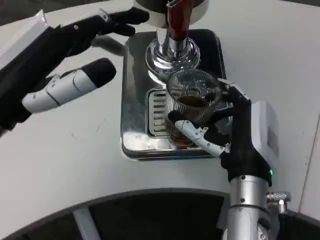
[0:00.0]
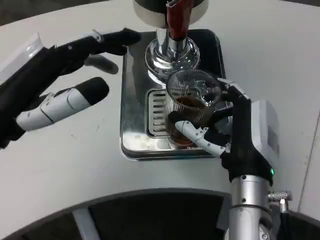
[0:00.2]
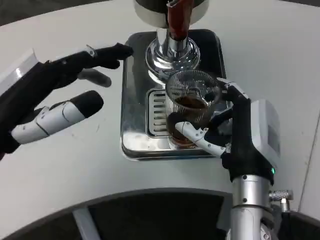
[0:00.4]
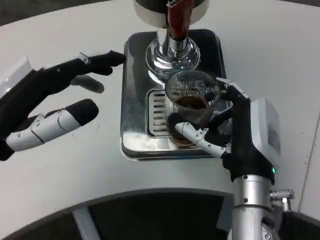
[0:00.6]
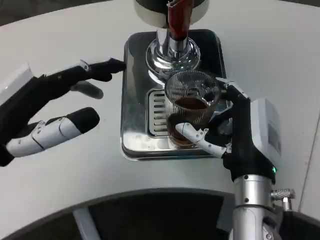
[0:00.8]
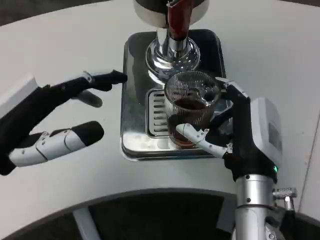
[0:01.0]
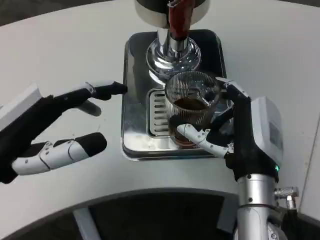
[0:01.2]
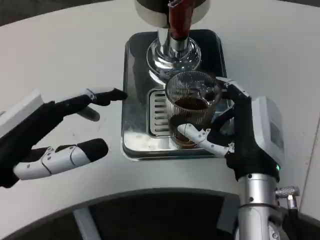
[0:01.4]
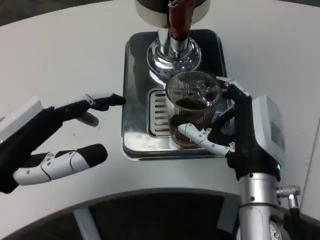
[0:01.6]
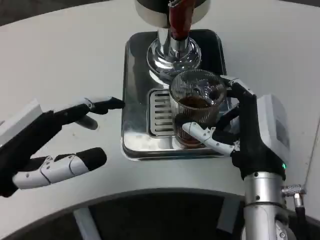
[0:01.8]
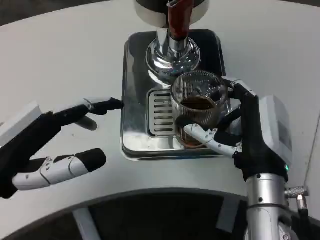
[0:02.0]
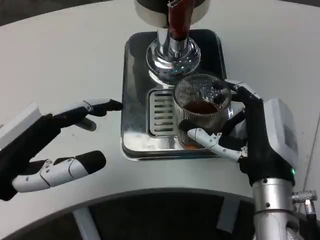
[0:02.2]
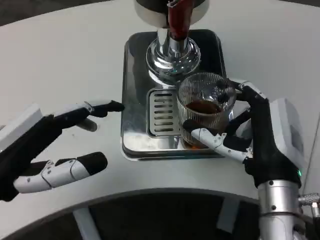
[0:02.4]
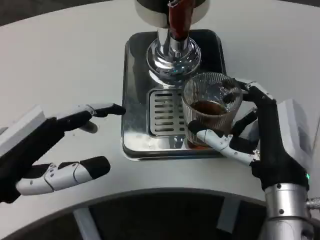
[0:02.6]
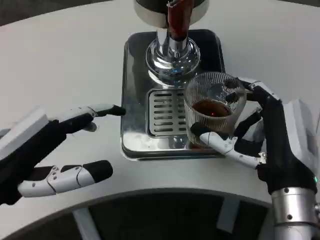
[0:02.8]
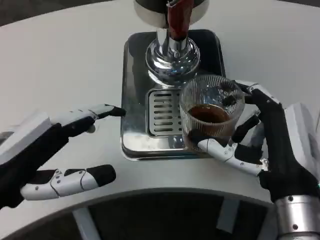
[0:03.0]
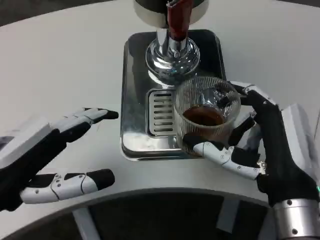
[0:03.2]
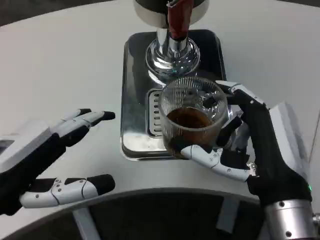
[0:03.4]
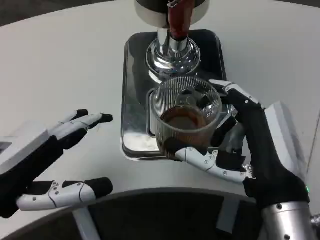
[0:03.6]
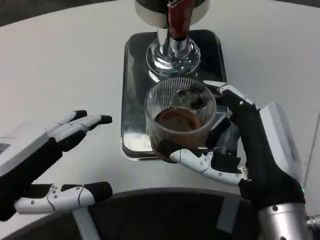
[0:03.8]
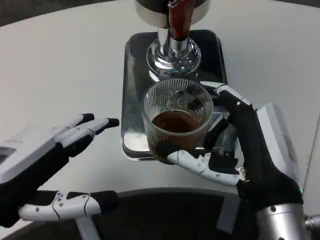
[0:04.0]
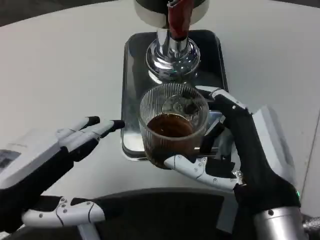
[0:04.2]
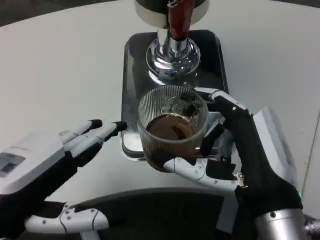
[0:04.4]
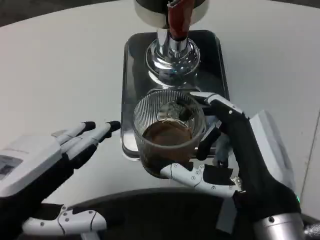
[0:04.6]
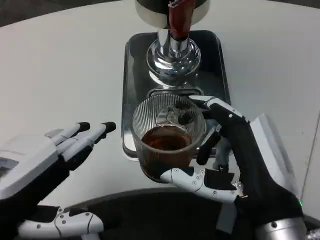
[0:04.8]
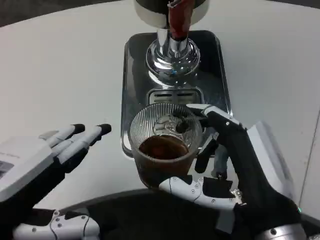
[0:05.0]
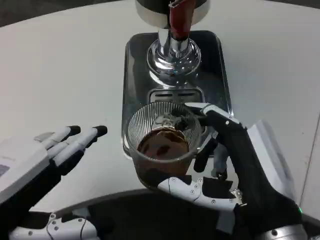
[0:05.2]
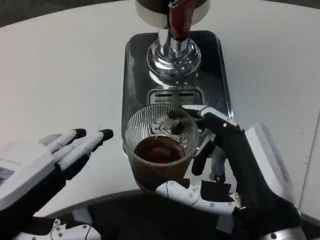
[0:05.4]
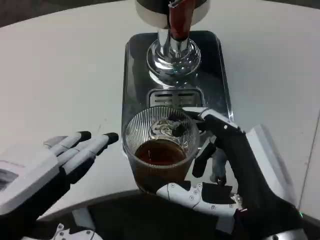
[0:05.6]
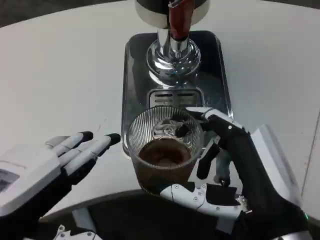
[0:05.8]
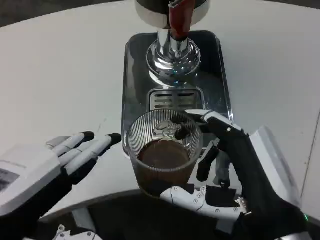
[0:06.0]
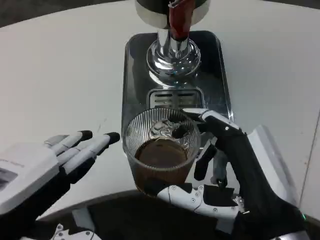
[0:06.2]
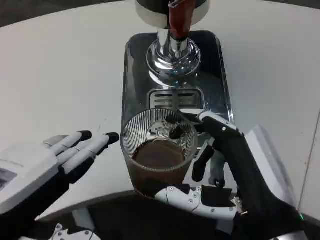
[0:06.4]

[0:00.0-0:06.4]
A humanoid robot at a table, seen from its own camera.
Task of the whole recording: Grasp the cup under the faucet to collect the drink, then remove the cup.
0:00.0 to 0:01.6: The left hand shifts about 5 cm downward.
0:01.6 to 0:03.2: The right hand heads backward, covering approximately 5 cm.

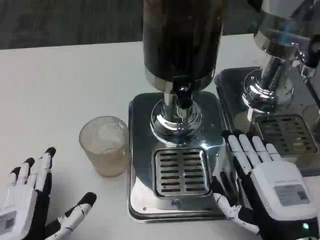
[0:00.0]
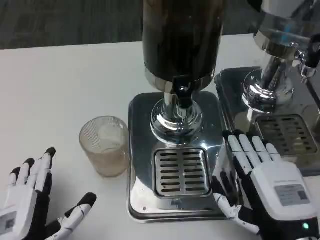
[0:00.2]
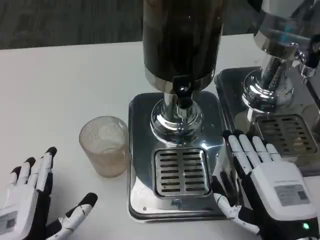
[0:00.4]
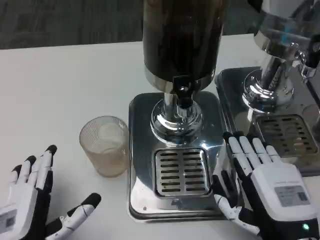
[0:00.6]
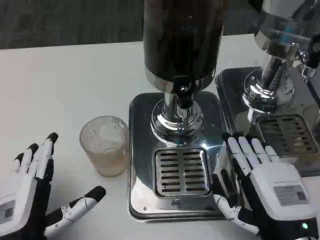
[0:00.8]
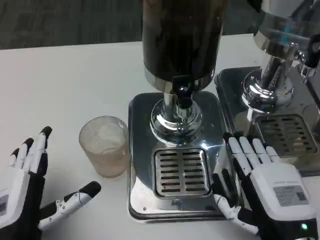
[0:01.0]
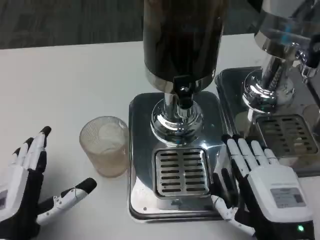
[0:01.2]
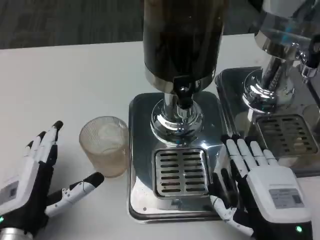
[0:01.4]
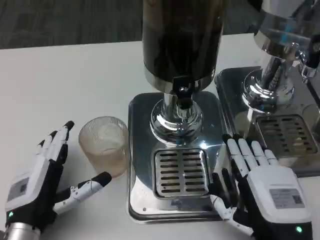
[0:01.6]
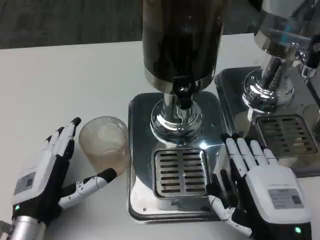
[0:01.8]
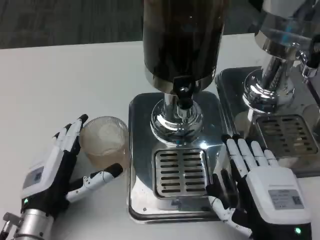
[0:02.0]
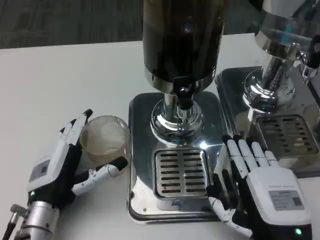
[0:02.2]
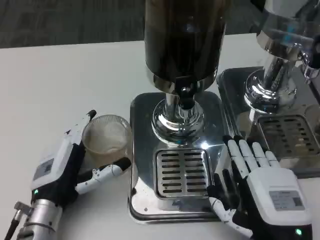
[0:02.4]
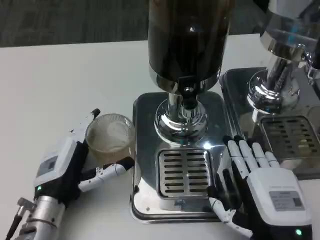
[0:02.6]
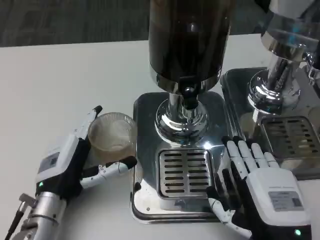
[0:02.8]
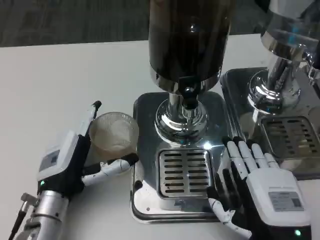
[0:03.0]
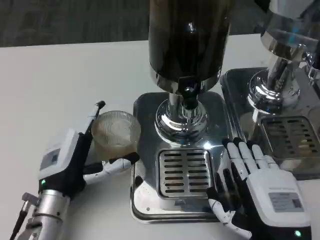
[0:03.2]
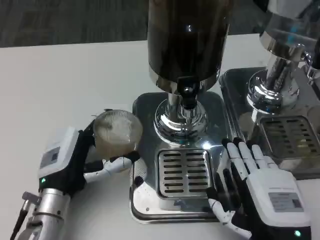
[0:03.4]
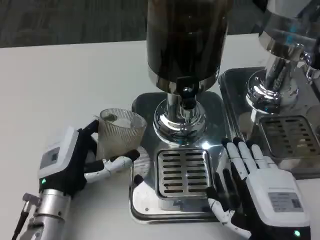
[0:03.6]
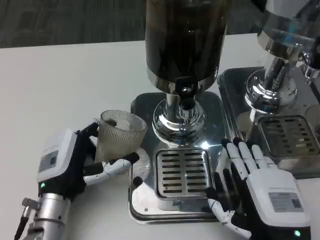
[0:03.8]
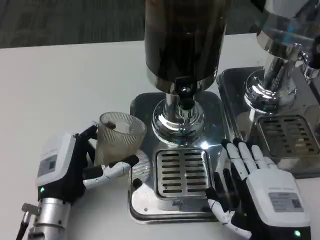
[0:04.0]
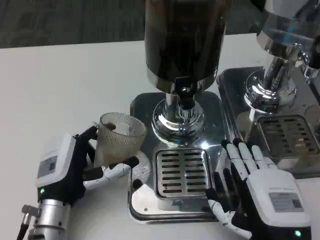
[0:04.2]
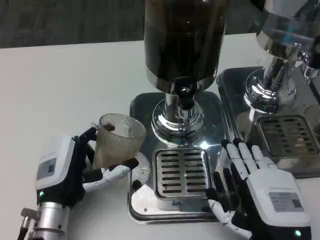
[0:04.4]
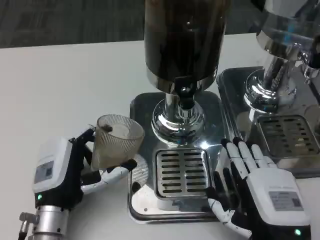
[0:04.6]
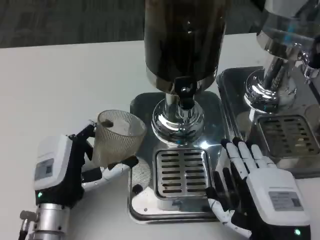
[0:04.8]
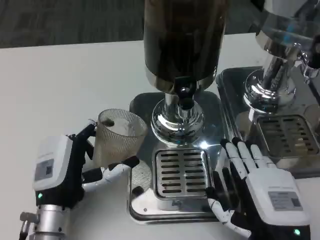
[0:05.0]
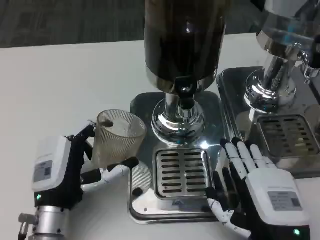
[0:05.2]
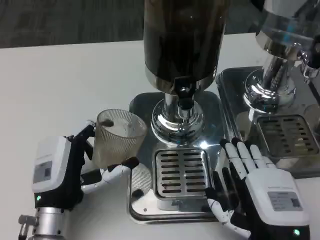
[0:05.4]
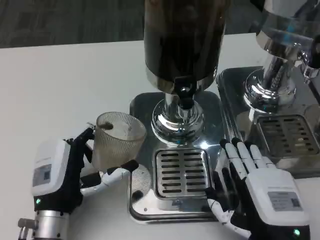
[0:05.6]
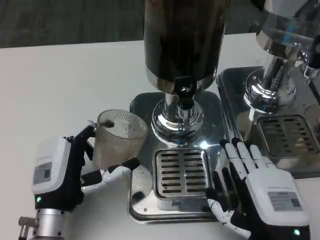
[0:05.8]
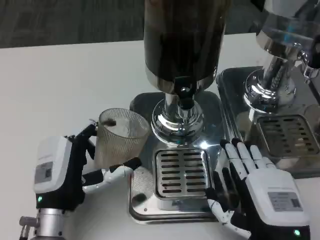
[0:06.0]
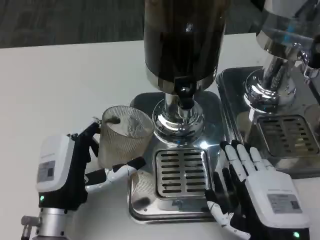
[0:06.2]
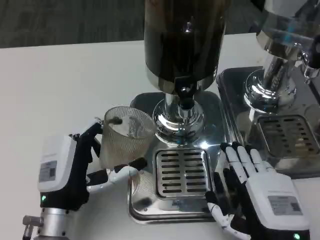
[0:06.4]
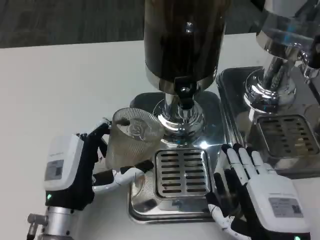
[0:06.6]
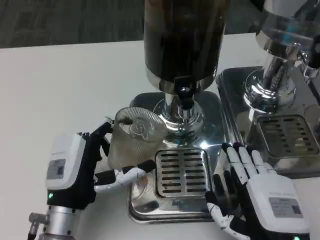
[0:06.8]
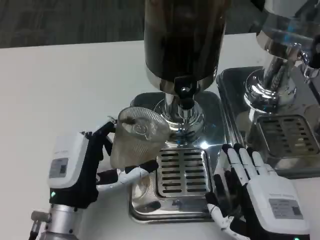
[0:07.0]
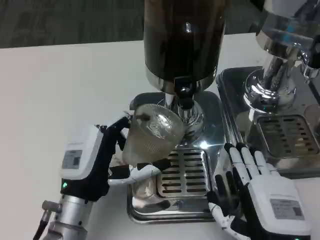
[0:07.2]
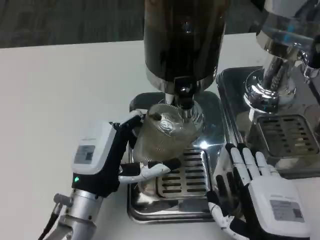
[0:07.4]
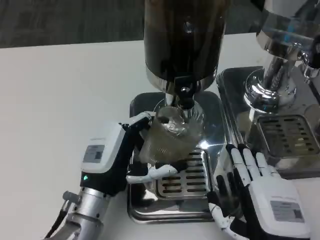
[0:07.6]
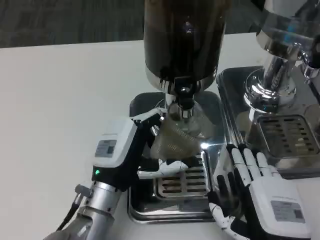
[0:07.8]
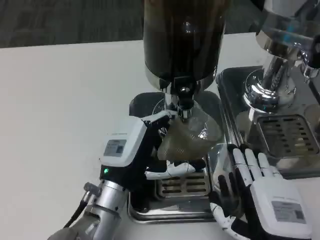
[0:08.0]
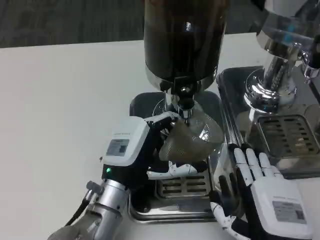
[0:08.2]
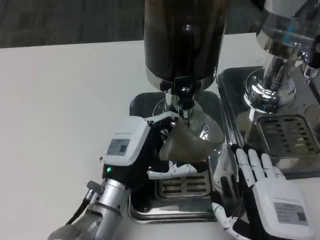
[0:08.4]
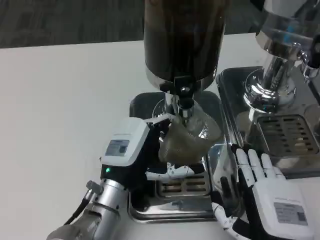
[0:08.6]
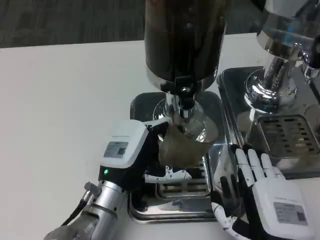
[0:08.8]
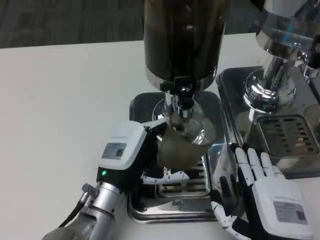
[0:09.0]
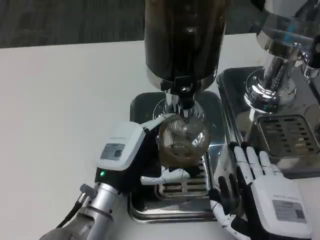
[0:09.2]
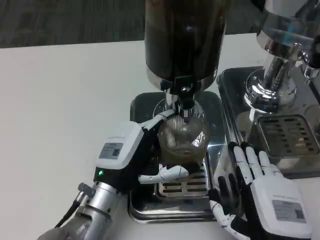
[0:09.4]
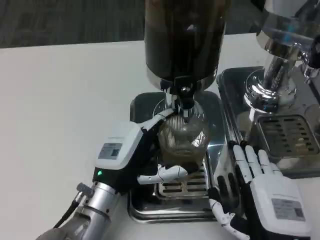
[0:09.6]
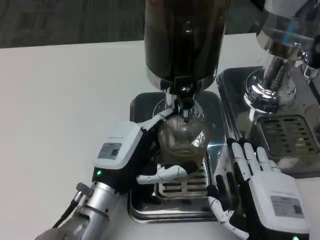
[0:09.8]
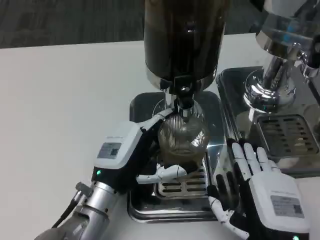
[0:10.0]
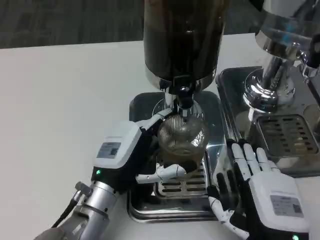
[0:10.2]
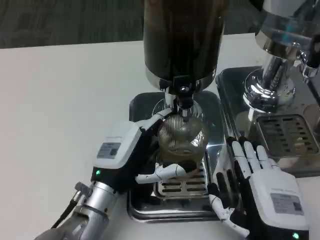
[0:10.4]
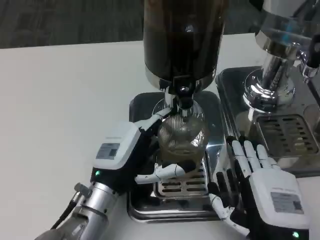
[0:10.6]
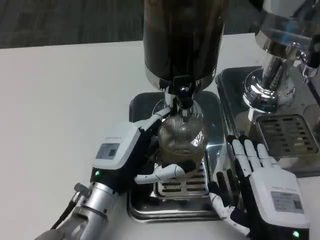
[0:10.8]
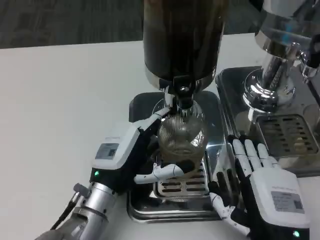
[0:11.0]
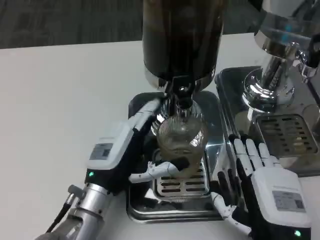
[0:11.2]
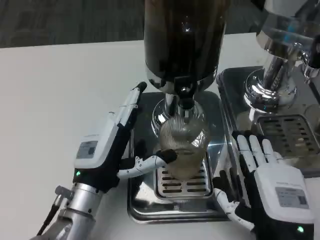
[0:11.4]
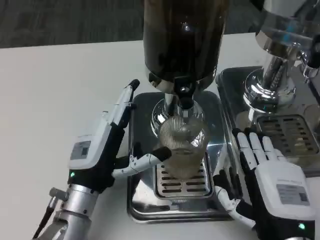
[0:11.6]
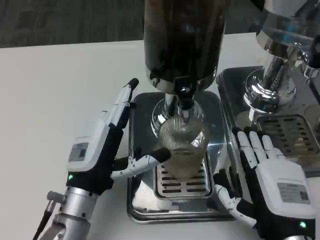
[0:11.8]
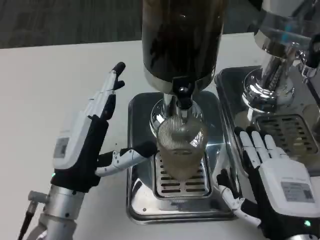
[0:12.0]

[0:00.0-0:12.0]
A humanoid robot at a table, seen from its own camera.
Task of the whole recording: Grasp the cup under the faucet to collect the drink, then remove the cup.
0:00.0 to 0:01.6: The left hand goes approximately 5 cm forward.
0:01.6 to 0:03.0: The left hand travels forward by about 5 cm.
0:04.4 to 0:06.0: There are only small adjustments of the hands.
0:06.0 to 0:07.6: The left hand changes place by some 5 cm.
0:07.6 to 0:09.0: The hands stay close to where they were, moving slightly.
0:09.0 to 0:10.4: Neither hand changes place.
0:10.4 to 0:12.0: The left hand shifts by approximately 5 cm.

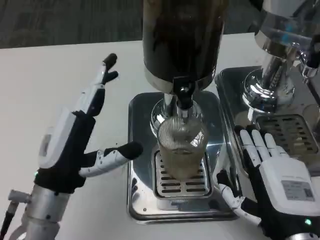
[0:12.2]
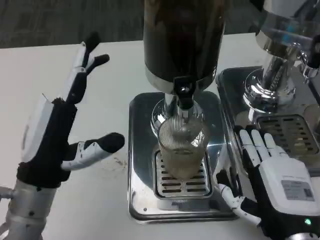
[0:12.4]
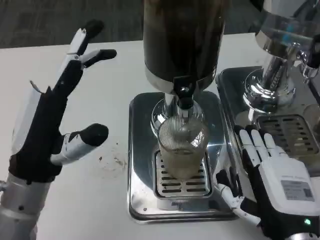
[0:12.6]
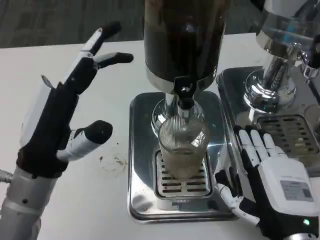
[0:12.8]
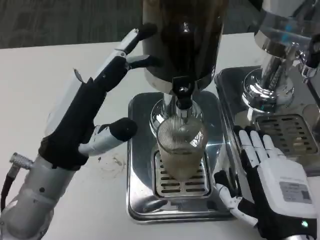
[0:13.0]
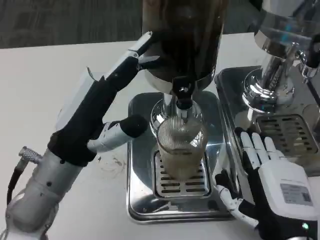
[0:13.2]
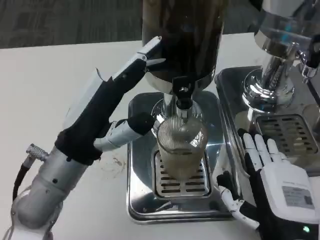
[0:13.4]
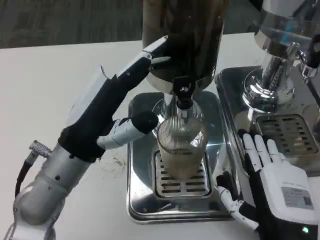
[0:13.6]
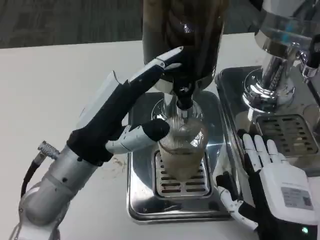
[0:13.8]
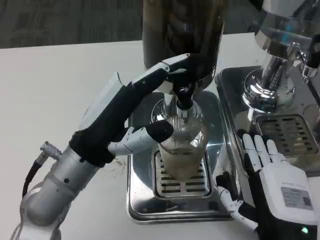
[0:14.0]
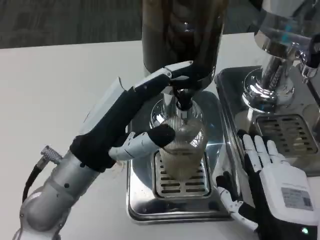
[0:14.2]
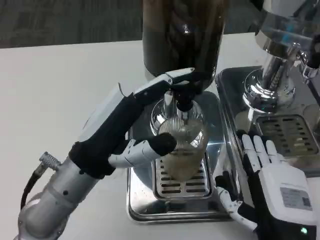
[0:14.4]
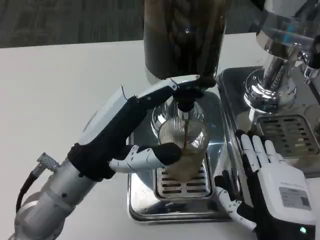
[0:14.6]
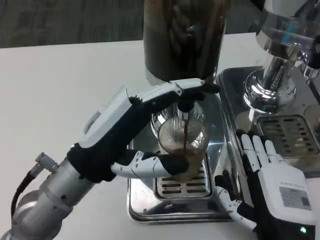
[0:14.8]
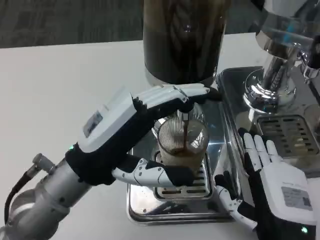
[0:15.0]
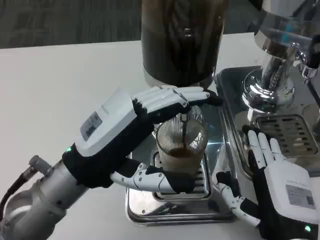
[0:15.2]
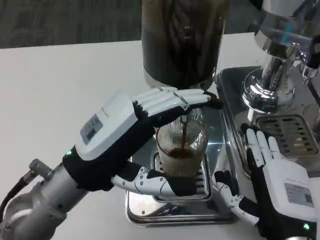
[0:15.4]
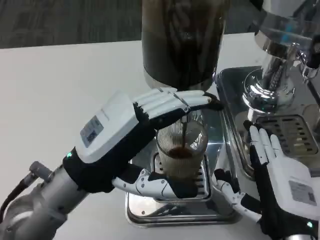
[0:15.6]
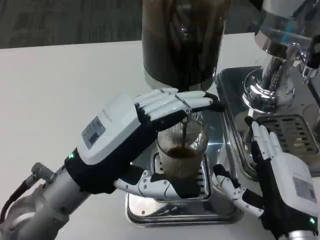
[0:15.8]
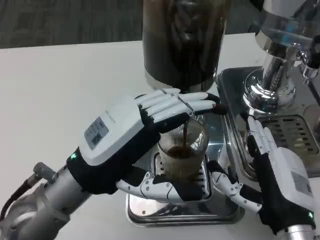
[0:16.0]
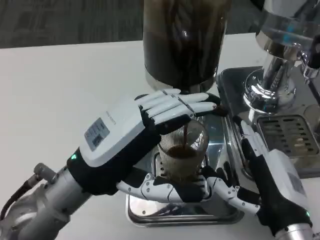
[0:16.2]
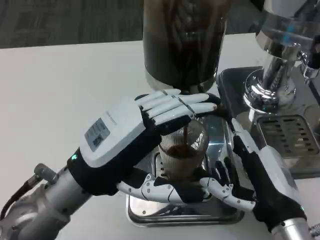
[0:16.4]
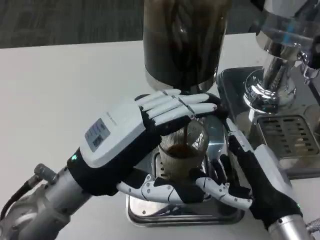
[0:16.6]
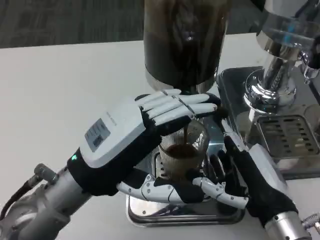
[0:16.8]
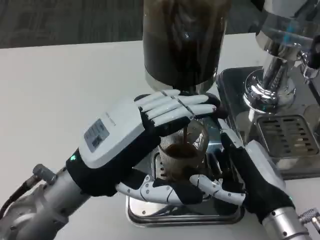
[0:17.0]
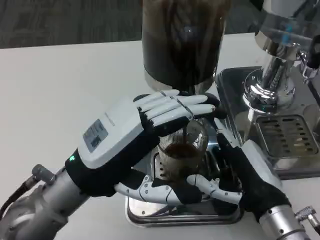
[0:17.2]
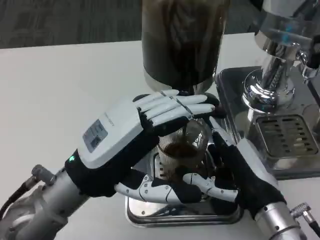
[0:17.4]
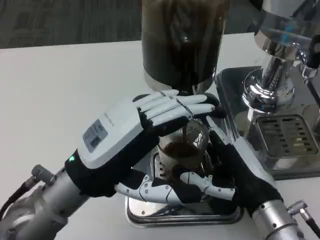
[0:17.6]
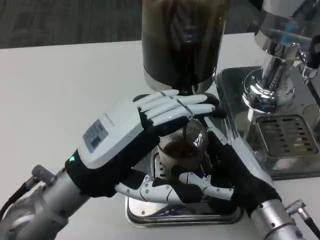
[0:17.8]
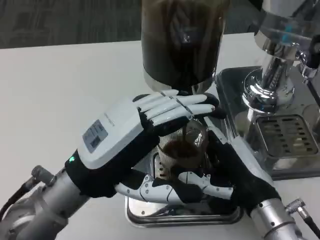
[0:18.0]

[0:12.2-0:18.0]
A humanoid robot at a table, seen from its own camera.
Task of the whole recording: Grasp the cup under the faucet to collect the drink, then remove the cup.
0:12.2 to 0:13.6: The left hand changes place by some 5 cm.
0:16.6 to 0:18.0: The hands stay close to where they were, moving slightly.
